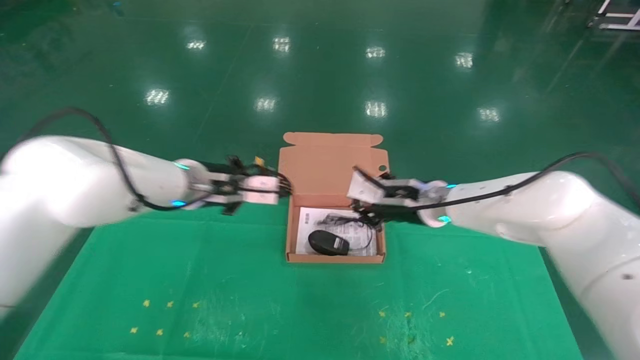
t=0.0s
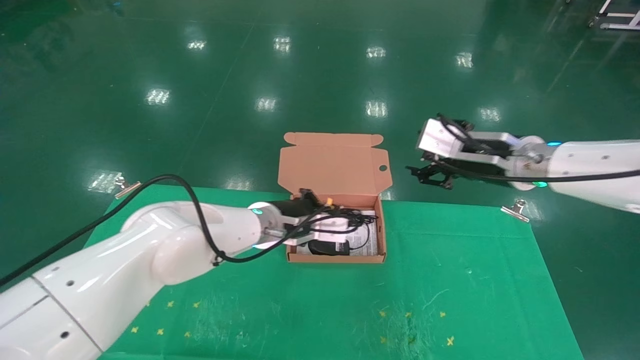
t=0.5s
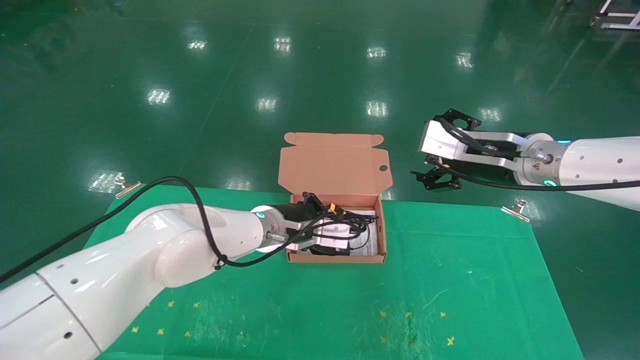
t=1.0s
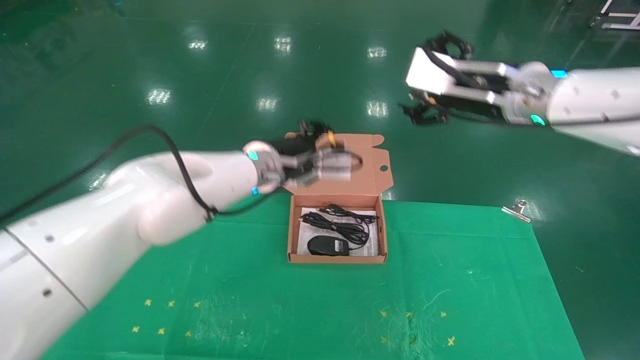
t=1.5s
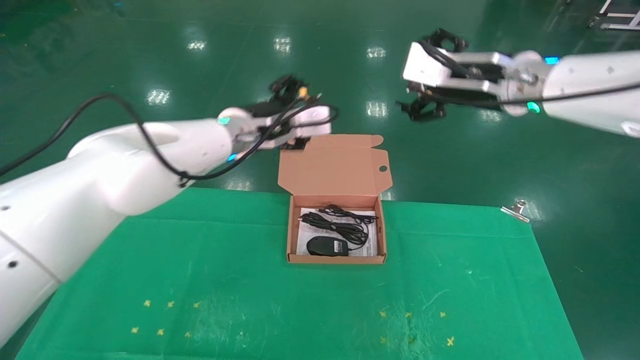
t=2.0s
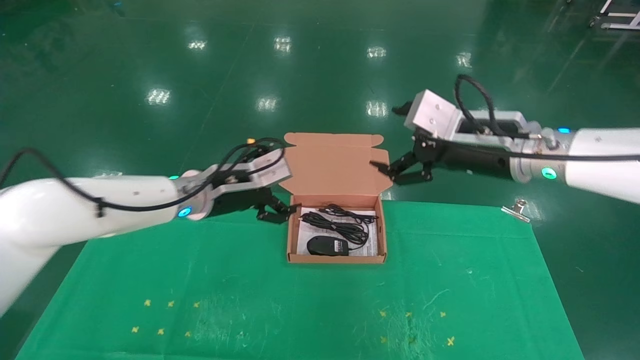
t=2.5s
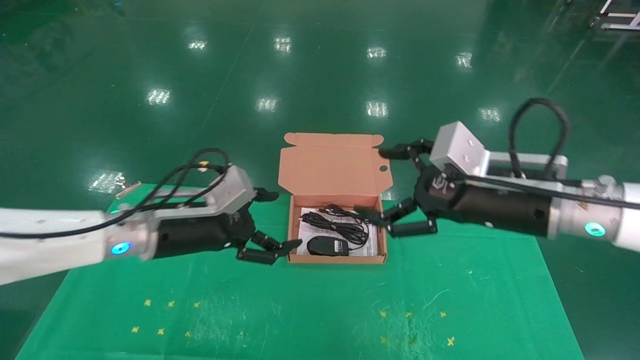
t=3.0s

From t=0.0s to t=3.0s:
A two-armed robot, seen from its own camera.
Task of the whole recording: grasp data cable left put into box grasp mouse right put into box.
From t=0.0s to t=1.5s: The right gripper shifts roughly 15 cm upward and backward, and opens up, while the left gripper shifts about 10 cm to the right, and goes downward and returns, some 5 cm each way.
From t=1.5s to t=3.0s: The left gripper travels to the left, backward and downward by about 20 cm, and opens its fingers; the right gripper is displaced downward and backward by approximately 15 cm.
